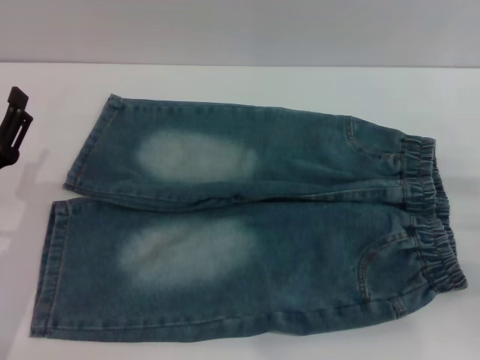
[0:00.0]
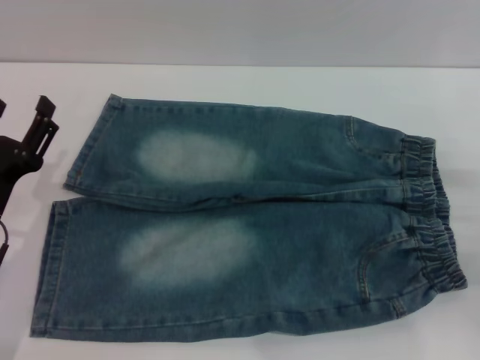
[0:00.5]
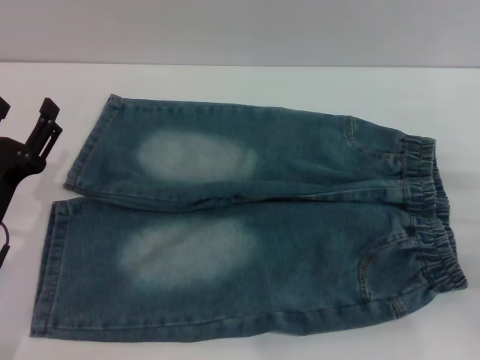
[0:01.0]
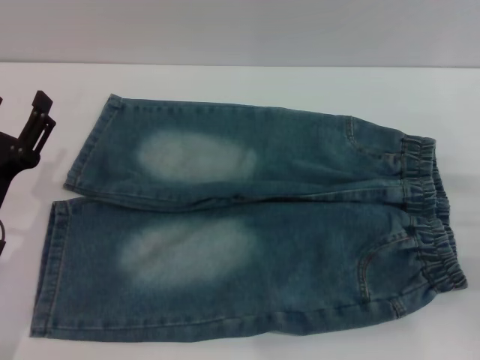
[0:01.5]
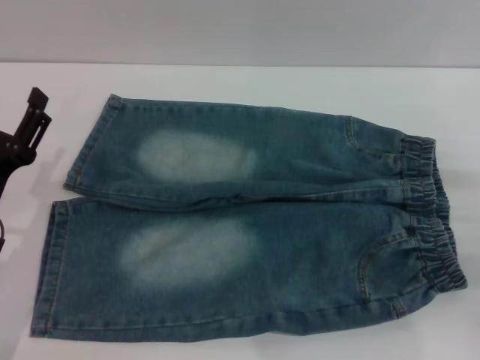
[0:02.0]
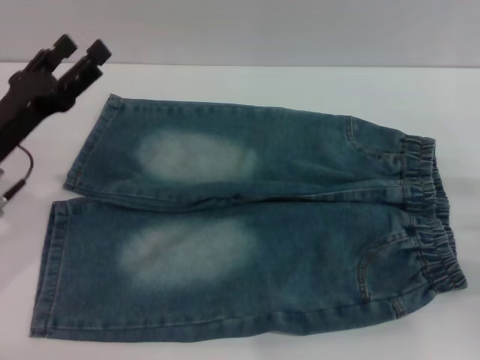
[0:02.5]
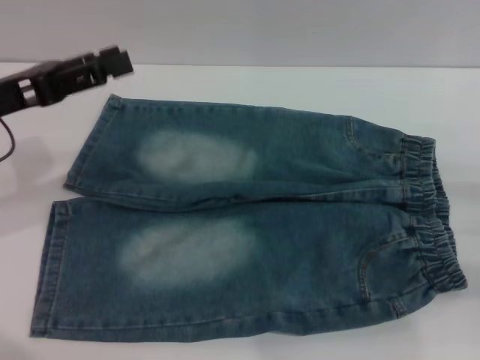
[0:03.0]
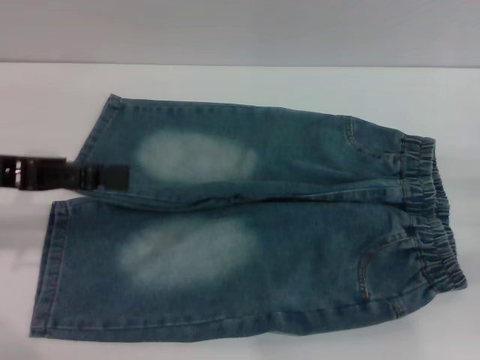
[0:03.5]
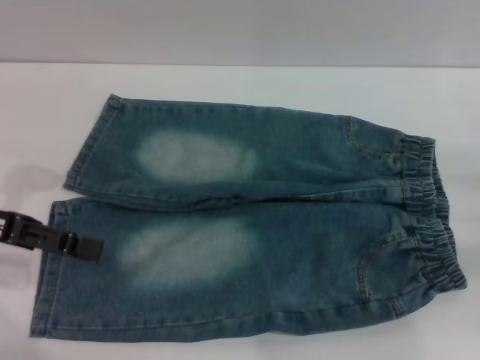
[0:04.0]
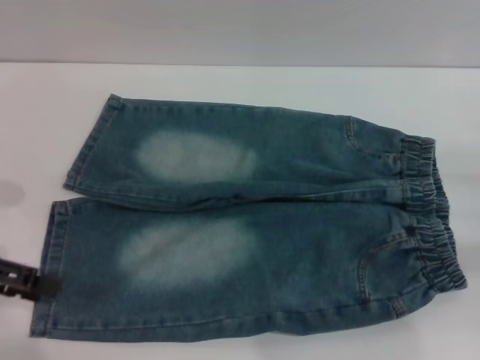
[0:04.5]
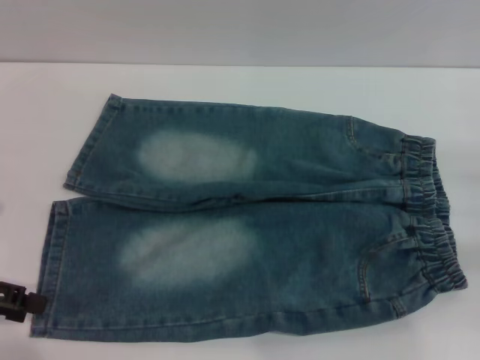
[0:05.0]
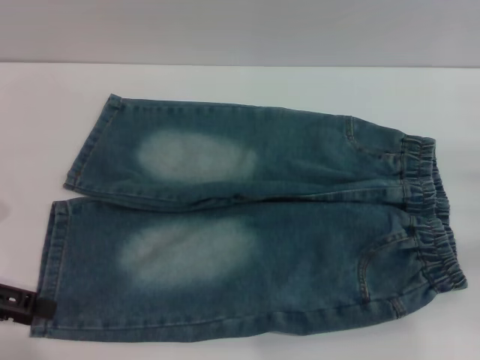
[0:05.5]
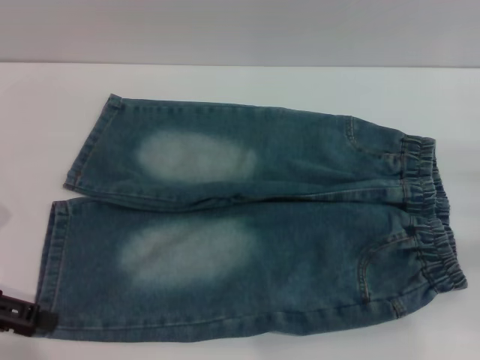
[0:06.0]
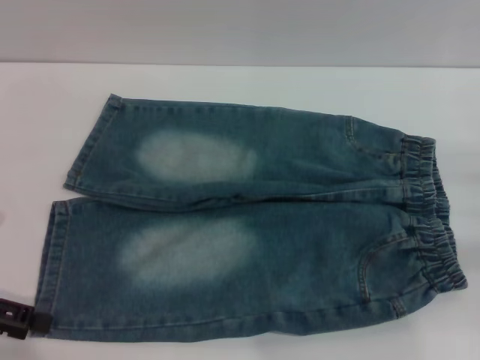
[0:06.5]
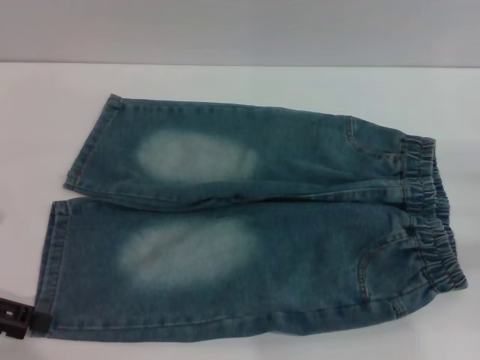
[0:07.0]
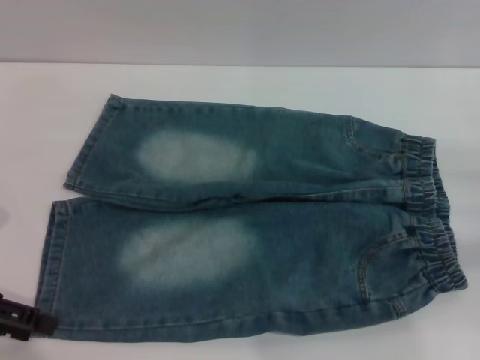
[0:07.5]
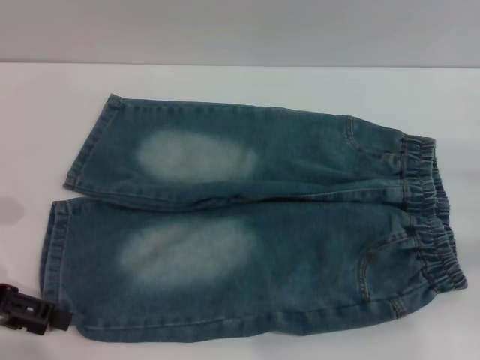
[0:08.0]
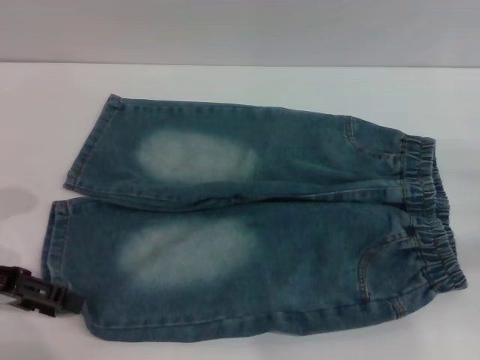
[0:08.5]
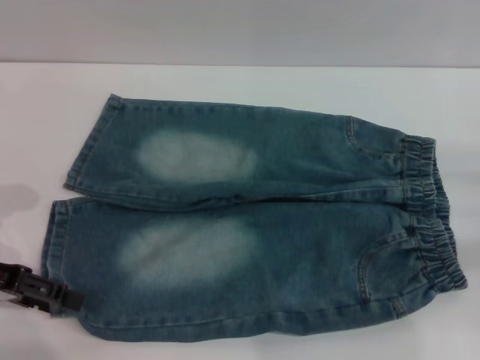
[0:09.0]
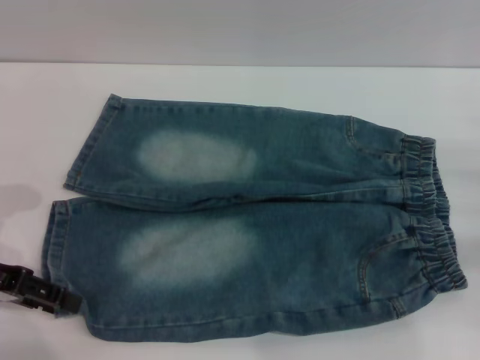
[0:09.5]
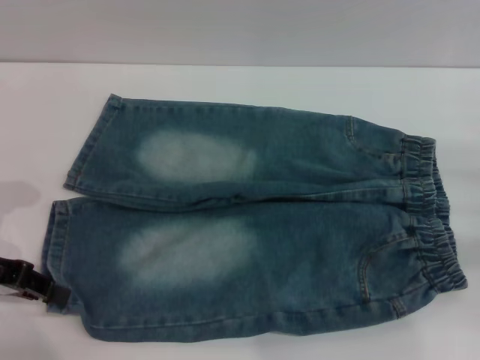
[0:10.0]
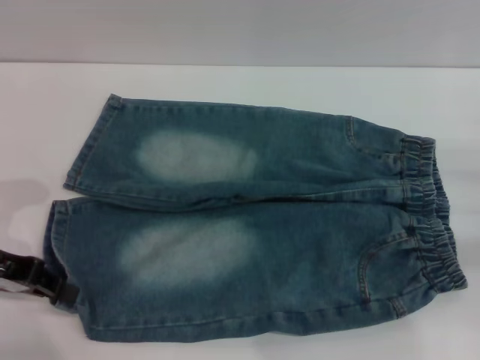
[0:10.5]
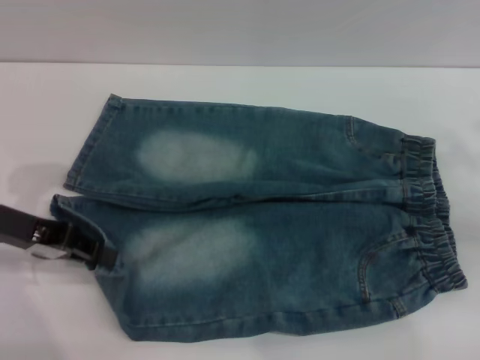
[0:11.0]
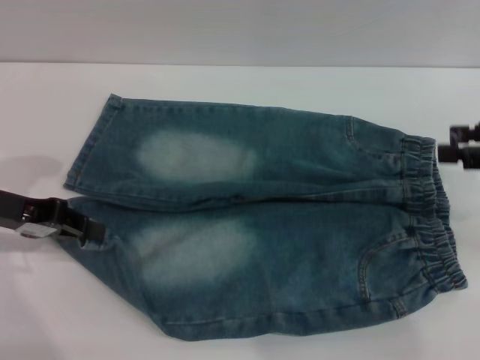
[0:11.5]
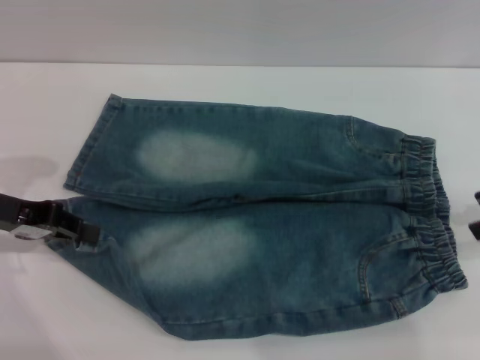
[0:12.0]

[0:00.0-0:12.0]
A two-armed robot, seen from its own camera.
0:00.0 to 0:02.0: The grippers move only a little.
0:02.0 to 0:04.0: The left gripper moves upward, forward and to the left, approximately 15 cm.
0:04.0 to 0:06.0: The left gripper moves about 5 cm.
0:06.0 to 0:08.0: Both grippers stay put.
0:08.0 to 0:10.0: The left gripper closes up.
0:10.0 to 0:12.0: The right gripper travels upward by about 15 cm.

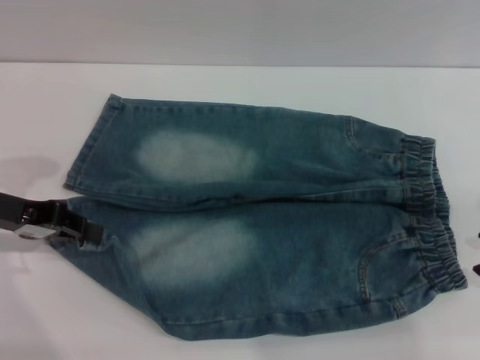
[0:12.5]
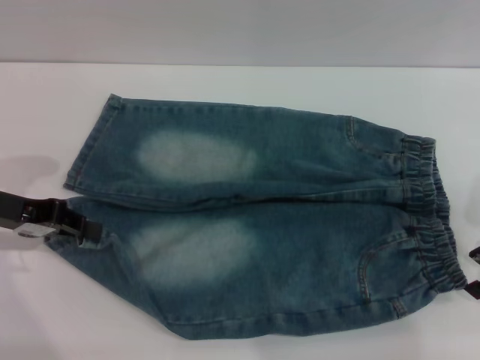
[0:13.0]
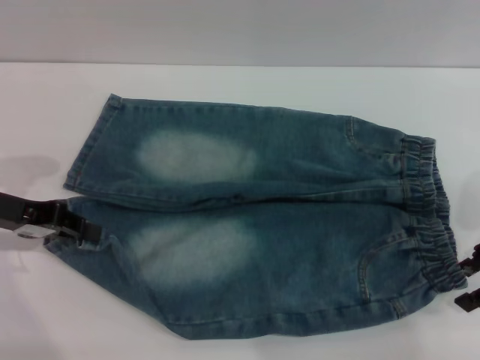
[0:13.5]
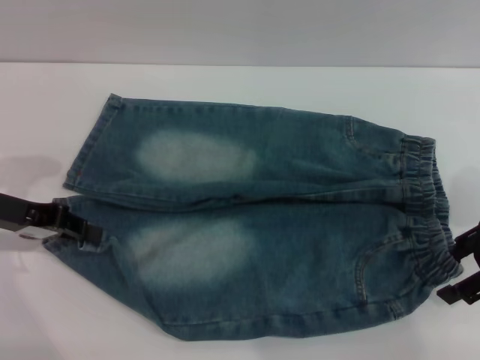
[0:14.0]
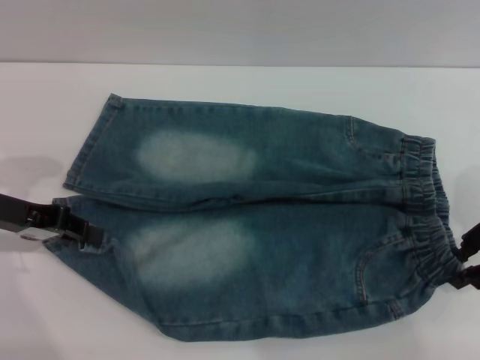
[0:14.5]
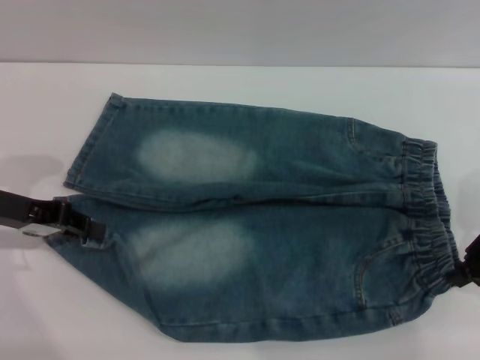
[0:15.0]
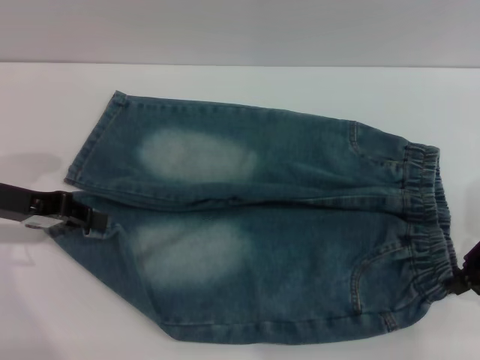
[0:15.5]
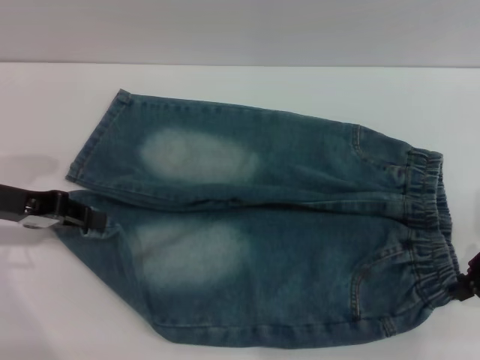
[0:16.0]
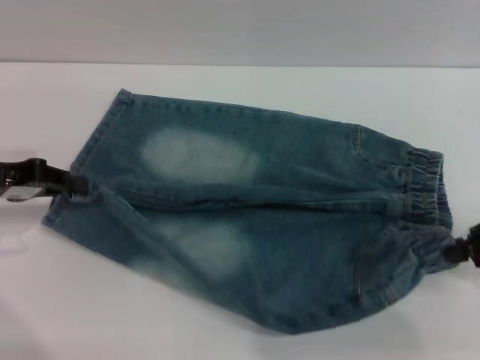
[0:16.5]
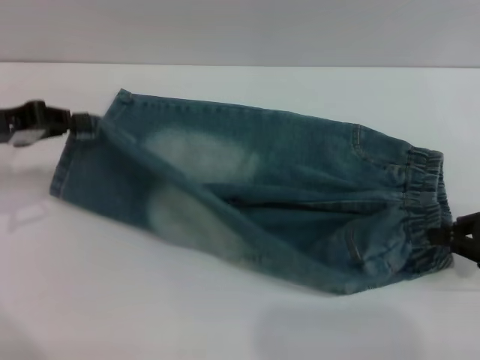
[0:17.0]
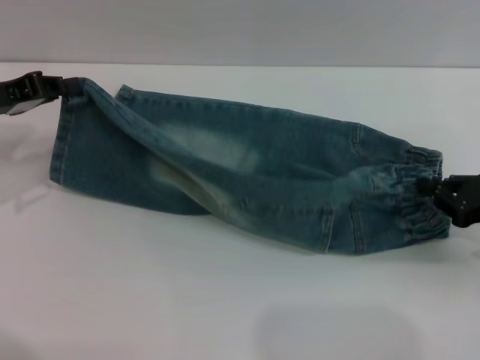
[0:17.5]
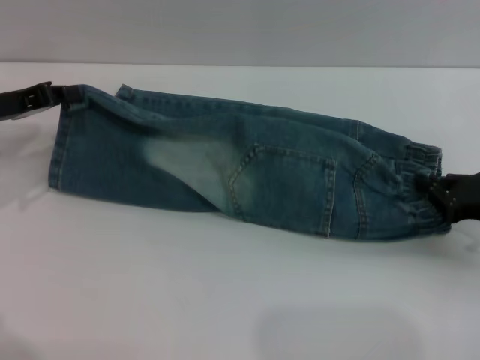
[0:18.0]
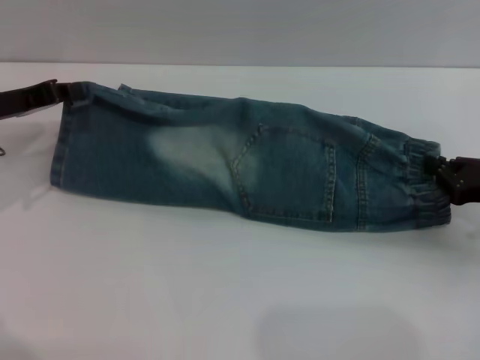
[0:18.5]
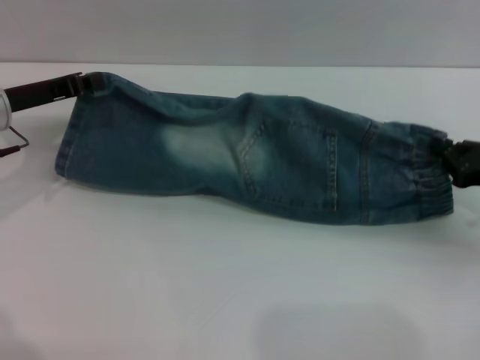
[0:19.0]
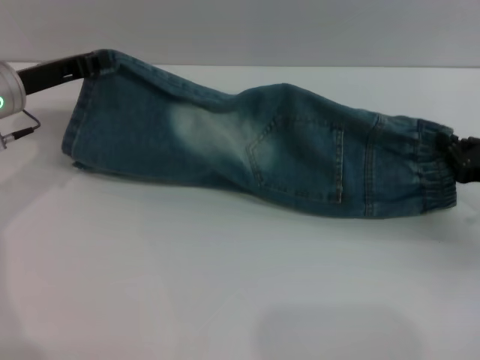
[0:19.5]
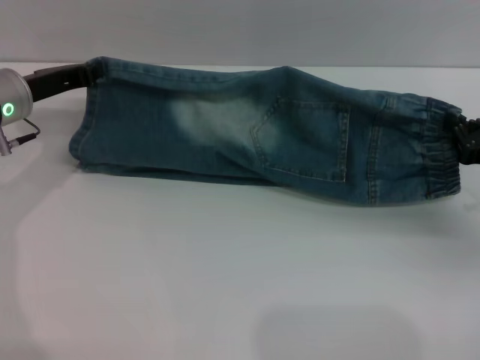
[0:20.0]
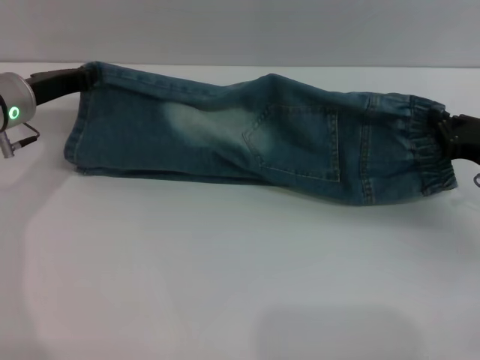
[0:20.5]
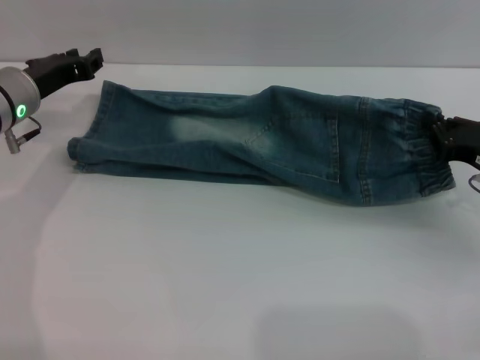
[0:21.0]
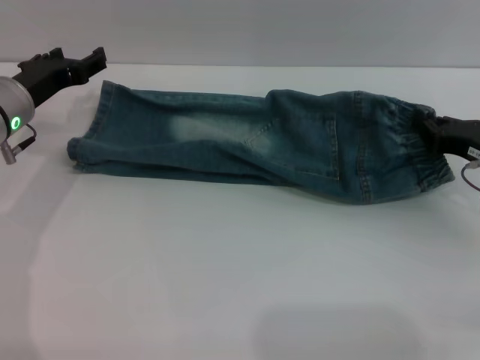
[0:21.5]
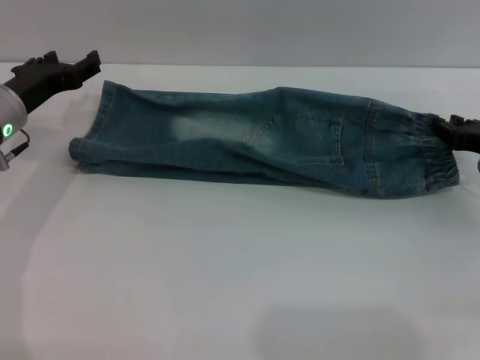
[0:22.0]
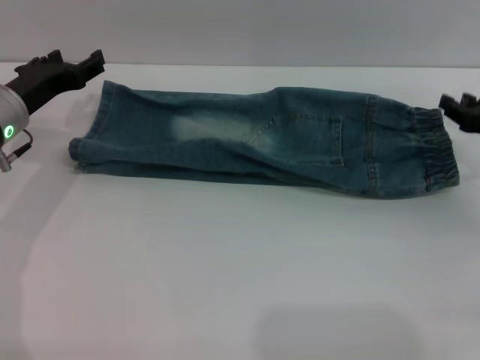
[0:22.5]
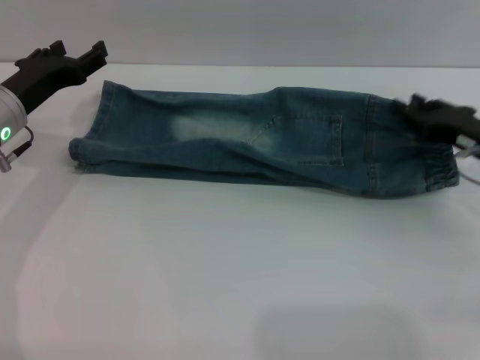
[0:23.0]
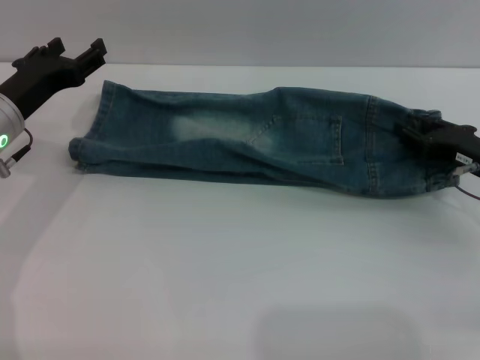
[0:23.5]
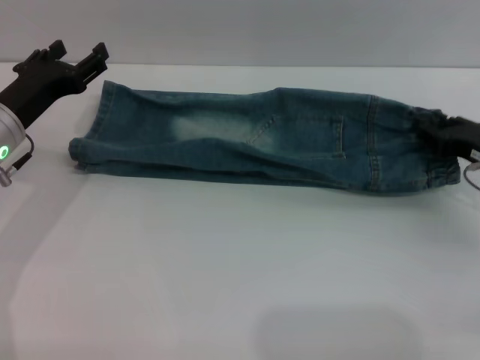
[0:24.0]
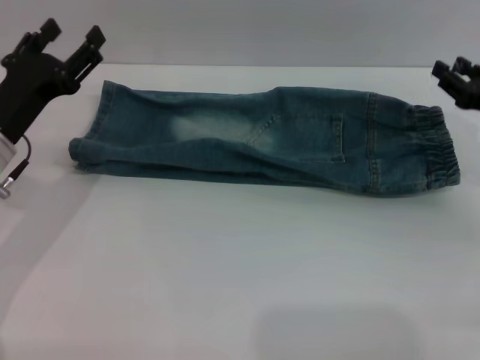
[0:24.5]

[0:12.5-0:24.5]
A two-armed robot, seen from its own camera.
Step, 0:12.5 to 0:22.0: Fold the bottom of the pants upward with both grippers.
0:12.5 to 0:14.5: The grippers make only small movements.
0:14.5 to 0:16.5: The right gripper closes up.
0:16.5 to 0:18.5: The left gripper travels forward by some 5 cm. Meanwhile the right gripper goes about 10 cm downward.
0:18.5 to 0:20.5: The left gripper moves to the right, approximately 5 cm.
0:20.5 to 0:22.5: The right gripper opens its fingers; the left gripper opens its fingers.
0:22.5 to 0:24.5: The left gripper moves backward, some 5 cm.

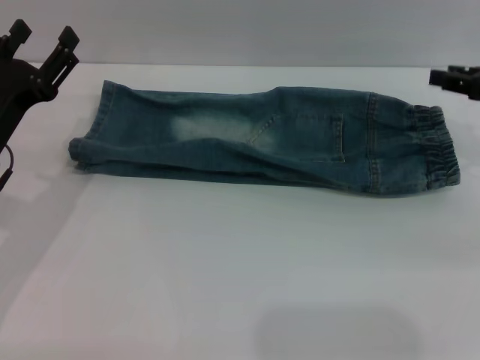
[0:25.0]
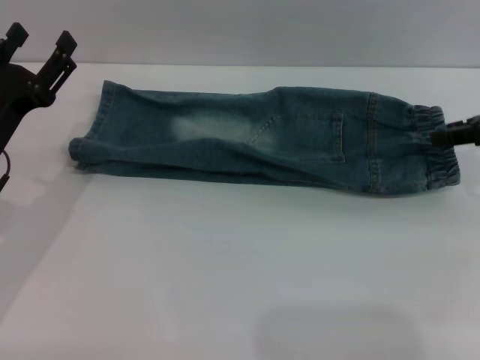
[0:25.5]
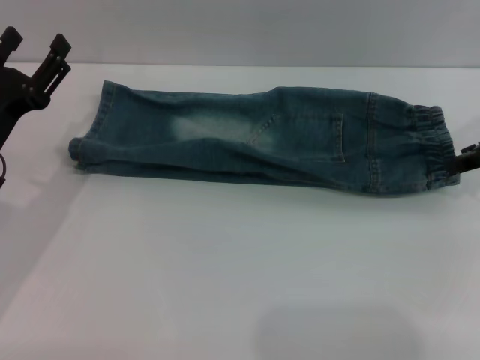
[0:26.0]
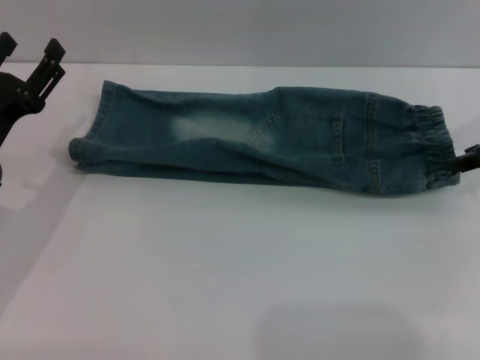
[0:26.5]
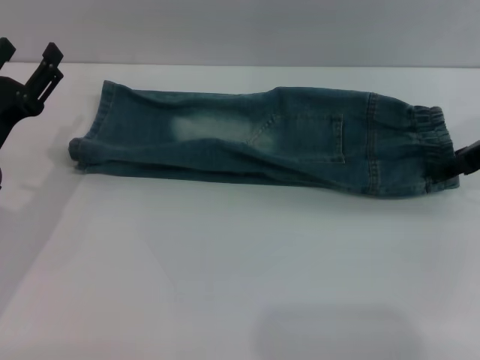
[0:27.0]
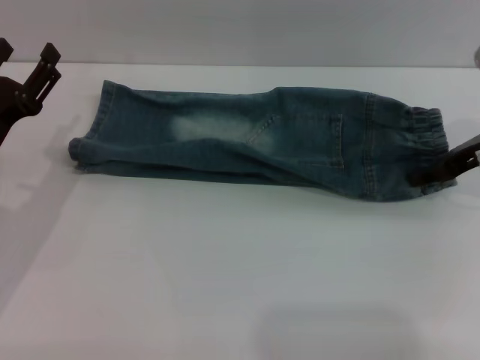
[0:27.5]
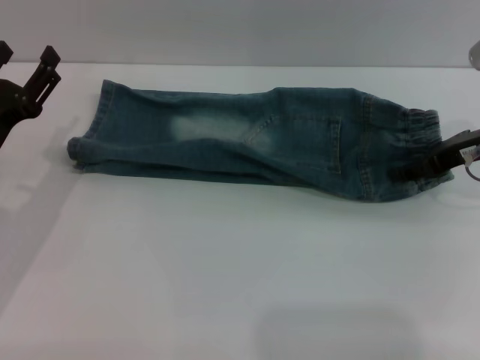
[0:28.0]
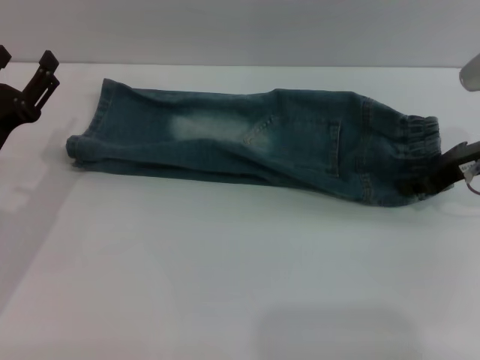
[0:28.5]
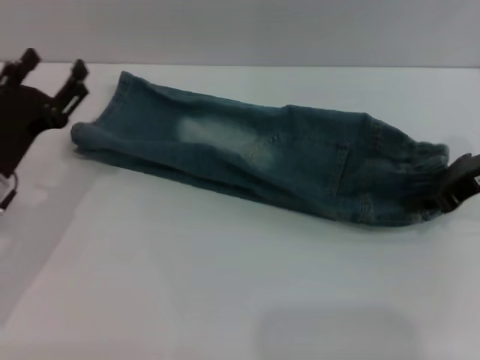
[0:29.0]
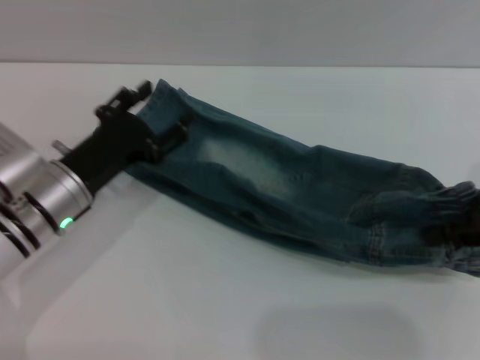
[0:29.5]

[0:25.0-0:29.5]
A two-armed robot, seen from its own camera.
0:27.0 to 0:29.5: The left gripper travels to the right by roughly 5 cm. The right gripper shifts some 10 cm backward, and closes its fingers.
